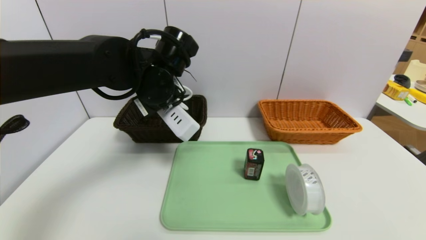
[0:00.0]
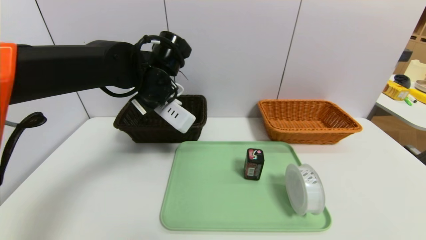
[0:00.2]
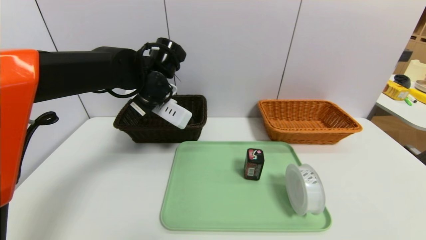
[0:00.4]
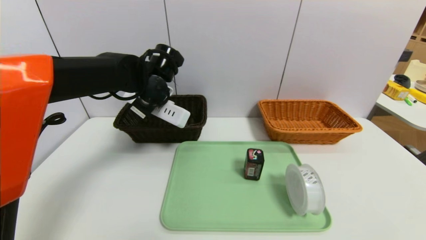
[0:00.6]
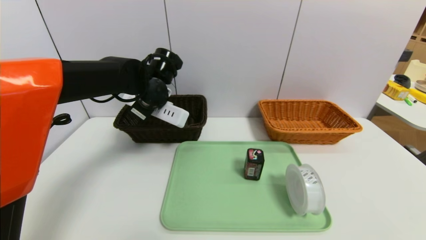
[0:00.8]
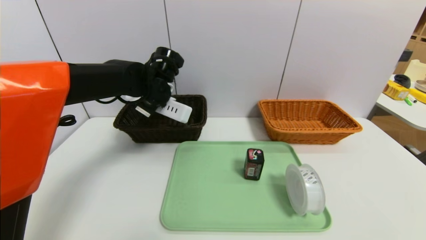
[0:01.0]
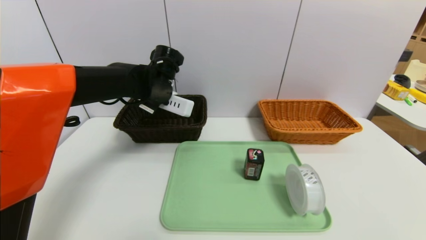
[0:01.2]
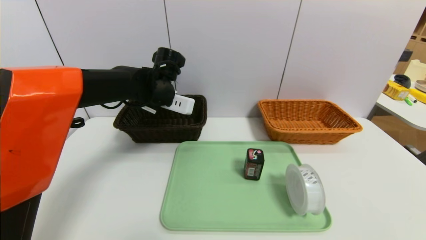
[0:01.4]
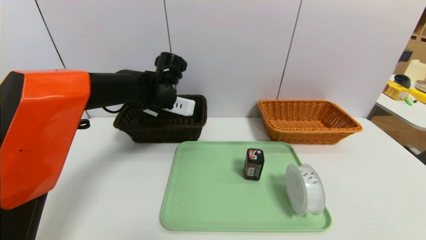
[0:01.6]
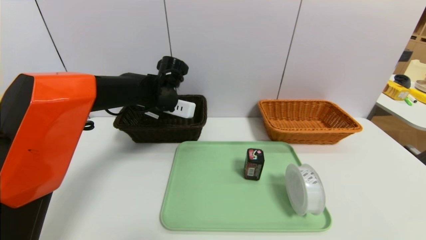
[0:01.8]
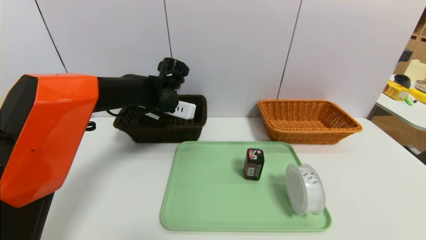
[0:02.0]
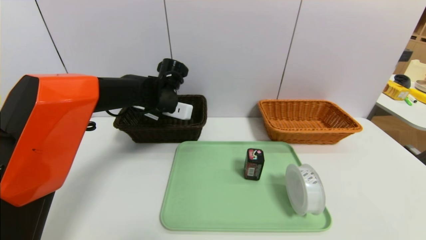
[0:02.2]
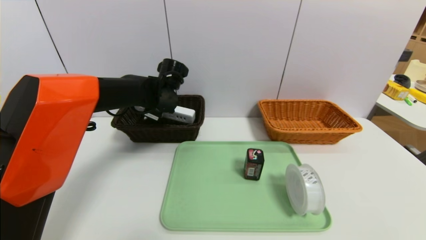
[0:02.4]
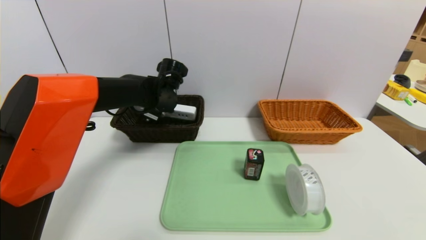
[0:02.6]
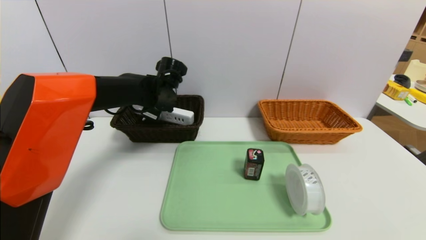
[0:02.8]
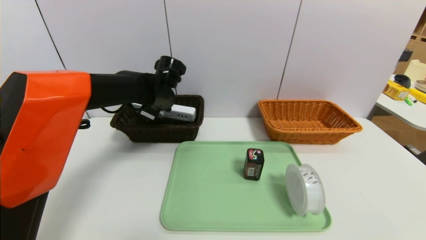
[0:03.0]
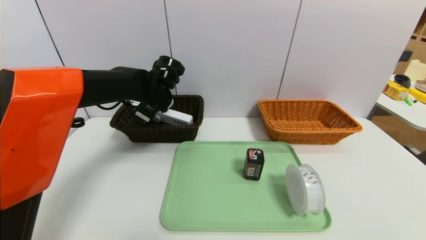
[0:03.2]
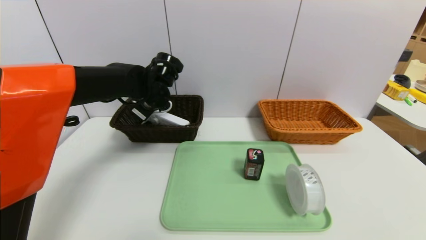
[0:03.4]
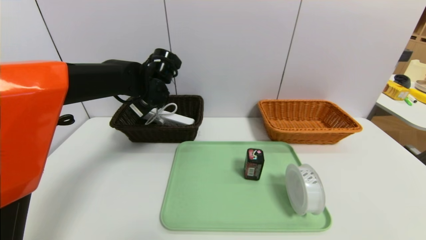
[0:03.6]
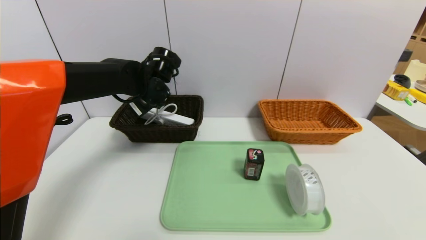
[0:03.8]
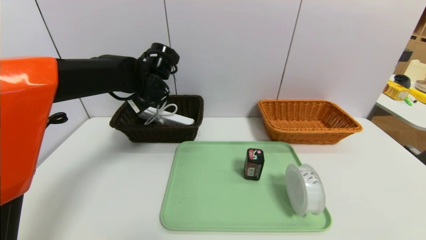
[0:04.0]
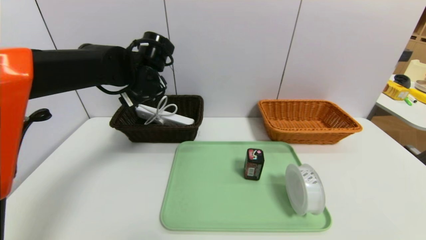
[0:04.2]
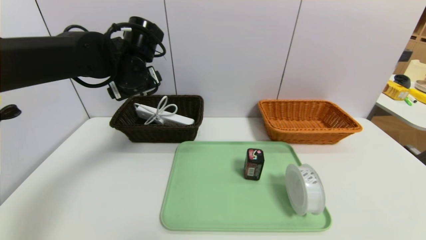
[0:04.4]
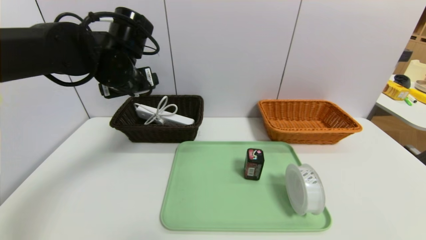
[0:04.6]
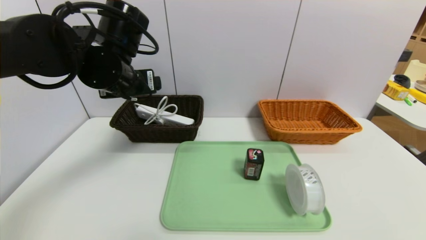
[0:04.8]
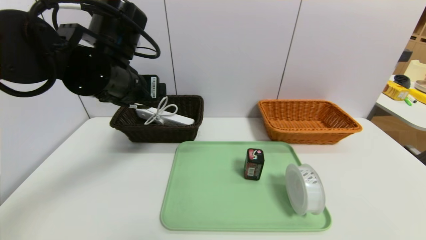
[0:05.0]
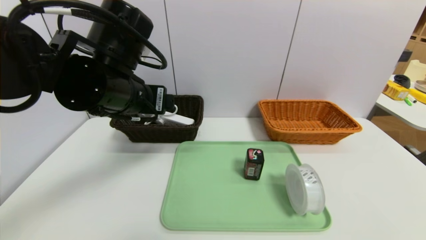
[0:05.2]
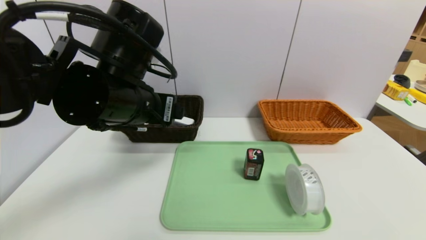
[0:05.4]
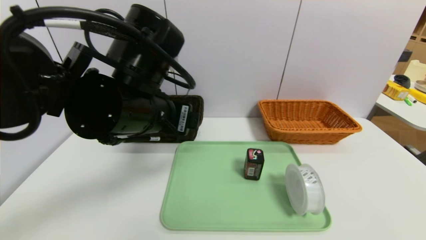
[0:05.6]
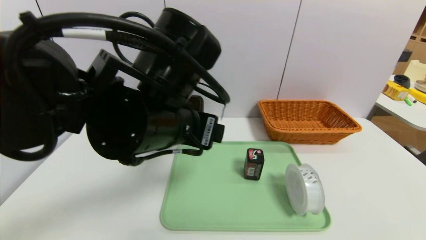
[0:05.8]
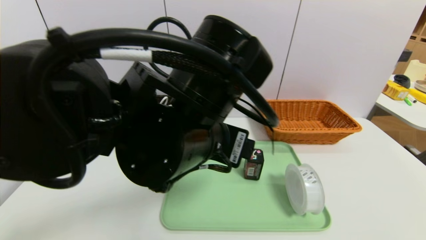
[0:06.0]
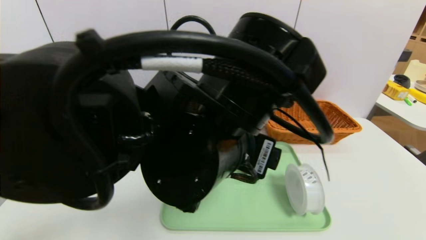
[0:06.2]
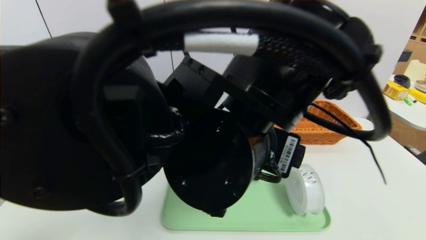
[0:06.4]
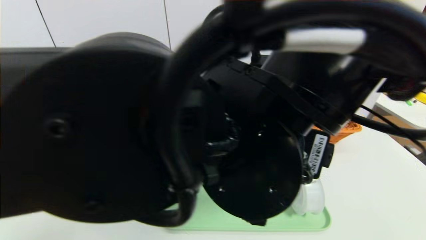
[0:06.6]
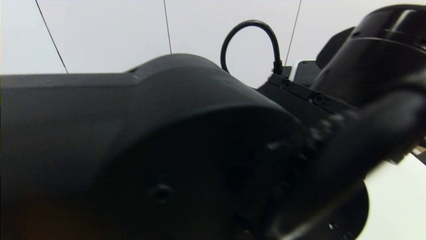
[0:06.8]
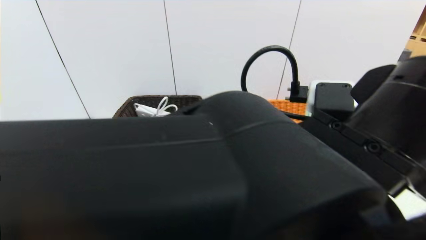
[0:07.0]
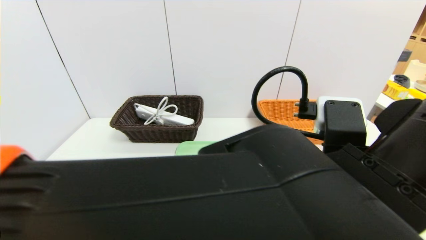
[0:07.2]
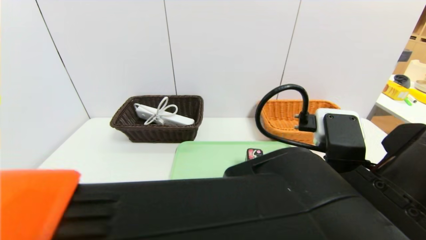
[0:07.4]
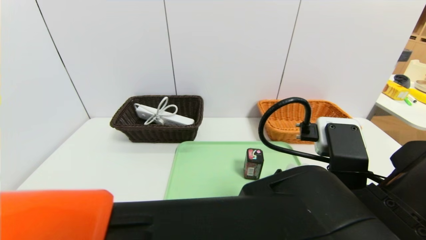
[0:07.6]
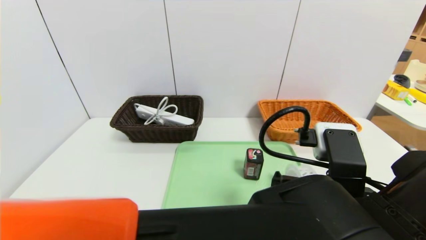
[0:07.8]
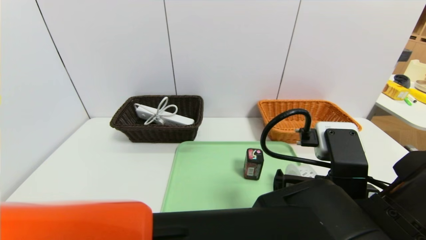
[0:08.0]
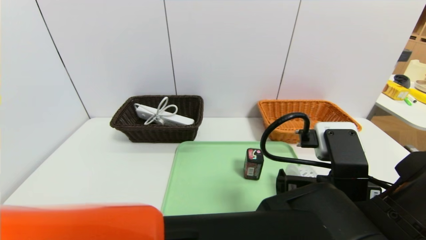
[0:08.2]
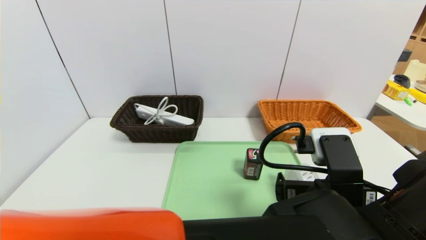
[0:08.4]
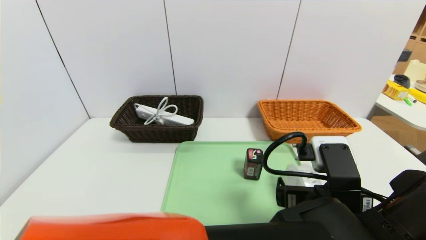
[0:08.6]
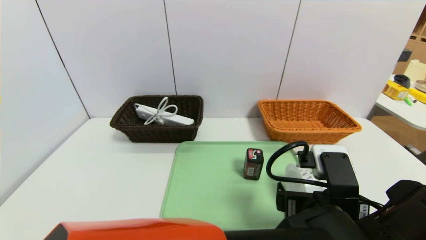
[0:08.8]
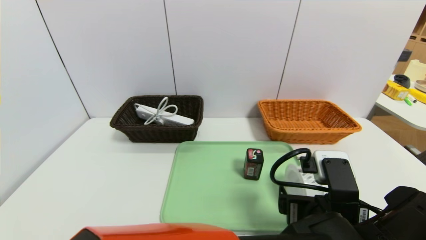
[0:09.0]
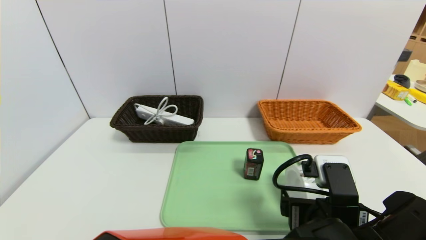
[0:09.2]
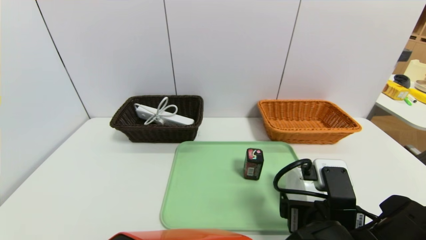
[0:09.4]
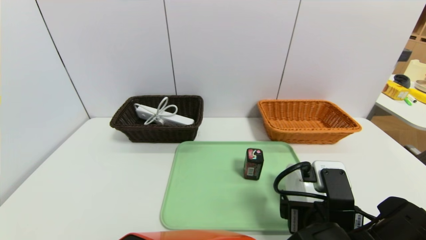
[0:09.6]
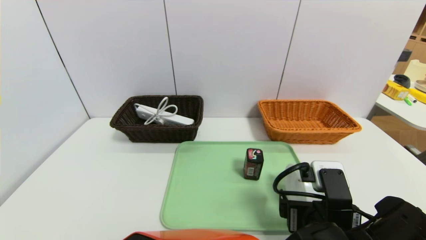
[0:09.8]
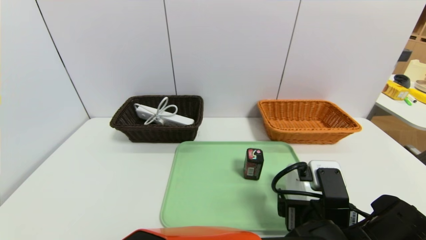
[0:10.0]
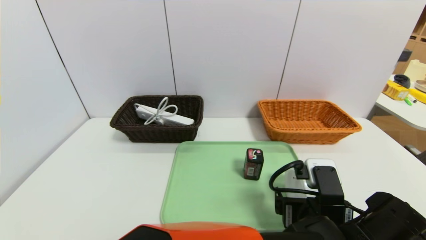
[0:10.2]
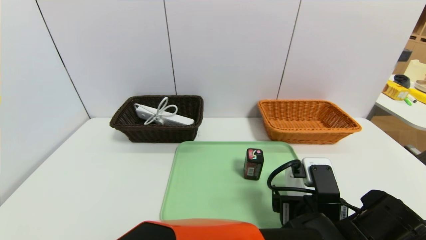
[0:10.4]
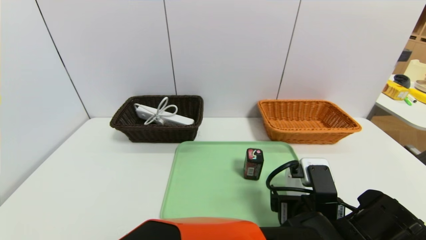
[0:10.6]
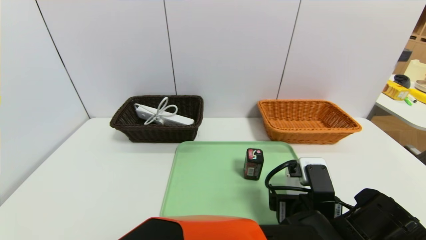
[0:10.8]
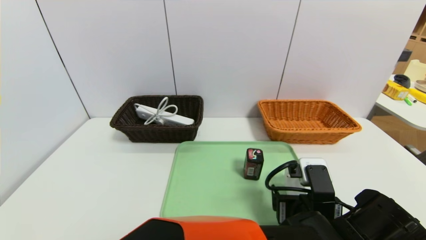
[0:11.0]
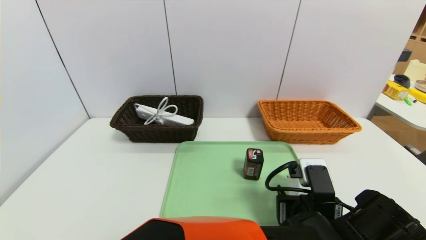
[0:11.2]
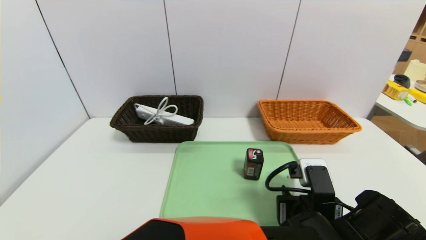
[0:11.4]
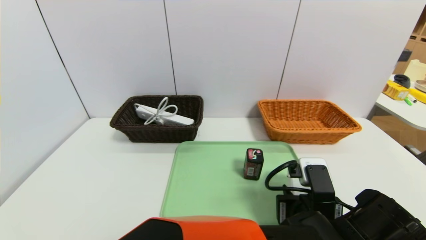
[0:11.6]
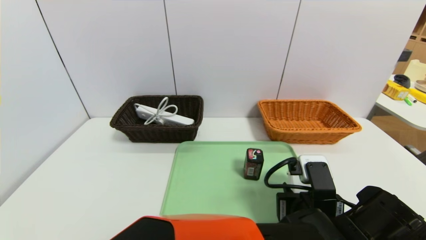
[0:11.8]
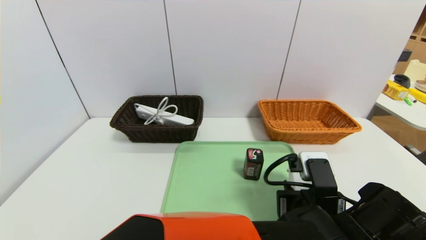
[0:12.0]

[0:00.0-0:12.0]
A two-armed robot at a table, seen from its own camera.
Task of the whole recording: place the food in the right basket with the right gripper, and place the non food items in the left basket with the left gripper.
Step, 0:00.0 to 0:02.8: Grasp the power strip and put it in the left basket.
0:00.0 to 0:01.6: The left gripper goes about 10 cm forward and downward.
0:01.6 to 0:03.0: The left gripper opens its fingers.
0:03.0 to 0:04.4: The left gripper goes roughly 10 cm upward and backward.
0:04.4 to 0:06.0: The left gripper heads backward and to the right, covering roughly 20 cm.
0:06.0 to 0:07.6: The left gripper goes approximately 15 cm to the right and backward.
0:07.6 to 0:09.0: The left gripper shifts approximately 5 cm downward.
0:09.0 to 0:10.4: There are only small adjustments of the grippers.
0:10.4 to 0:12.0: The left gripper closes its fingers.

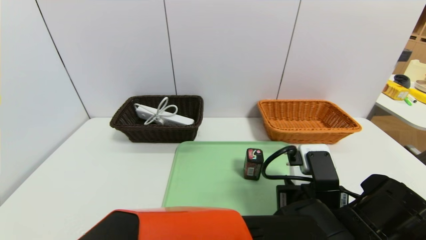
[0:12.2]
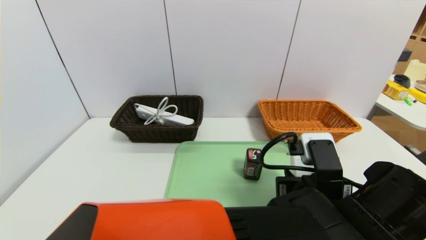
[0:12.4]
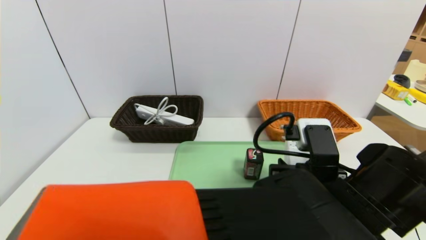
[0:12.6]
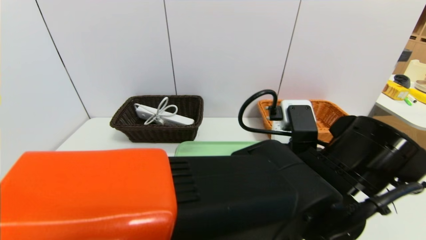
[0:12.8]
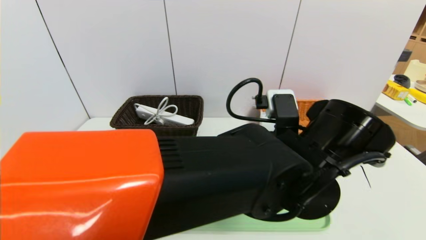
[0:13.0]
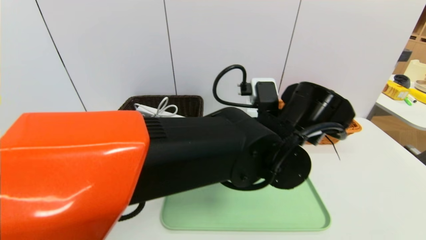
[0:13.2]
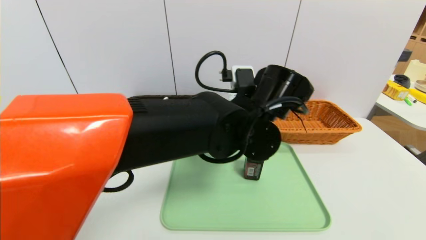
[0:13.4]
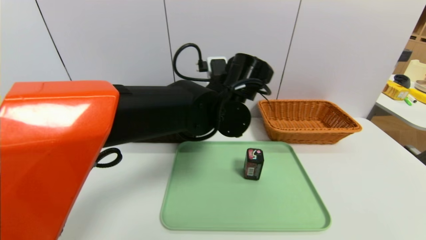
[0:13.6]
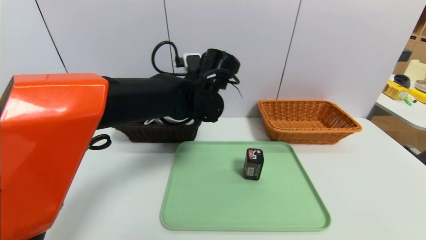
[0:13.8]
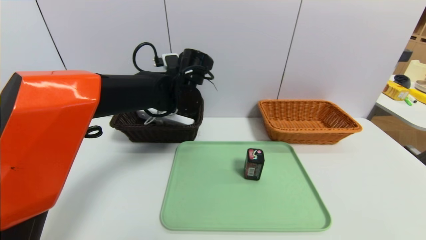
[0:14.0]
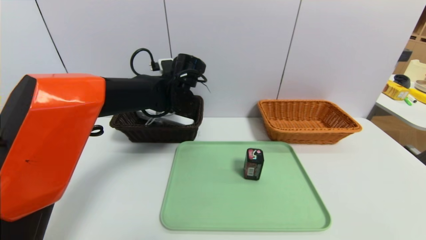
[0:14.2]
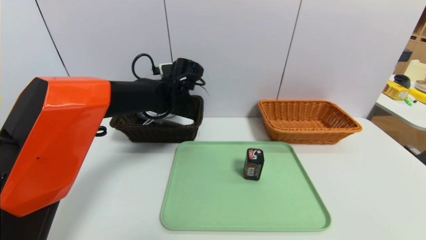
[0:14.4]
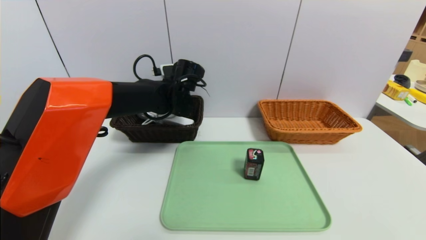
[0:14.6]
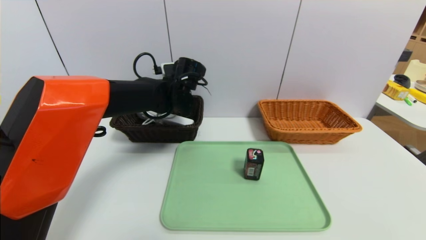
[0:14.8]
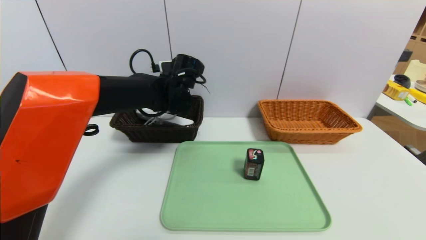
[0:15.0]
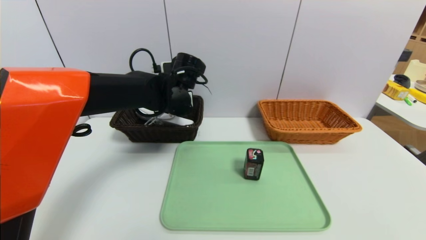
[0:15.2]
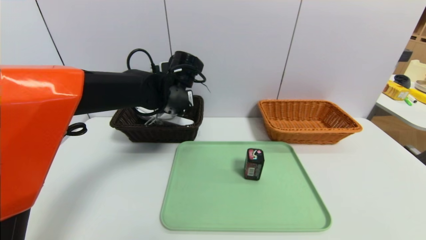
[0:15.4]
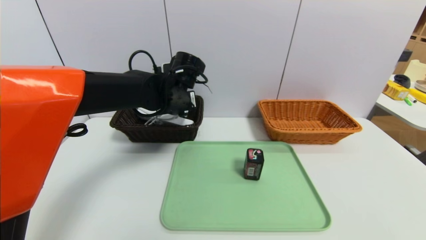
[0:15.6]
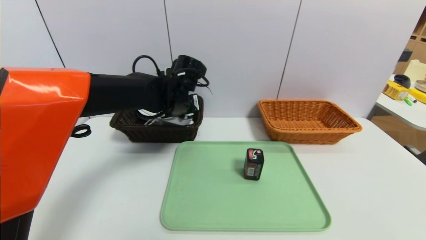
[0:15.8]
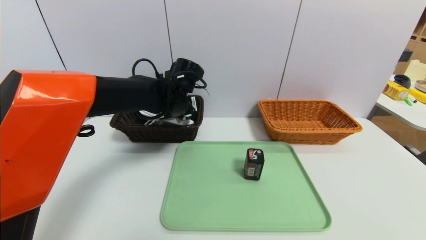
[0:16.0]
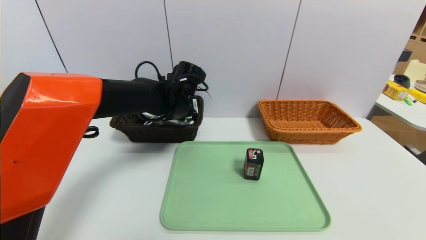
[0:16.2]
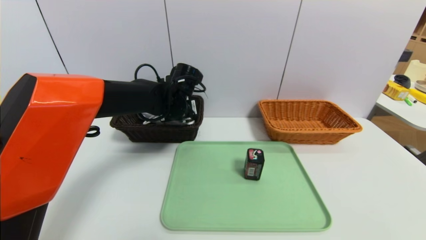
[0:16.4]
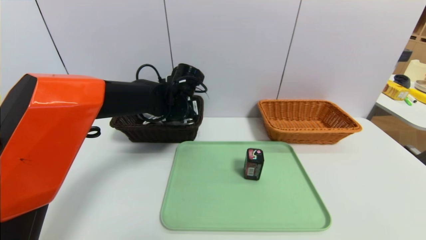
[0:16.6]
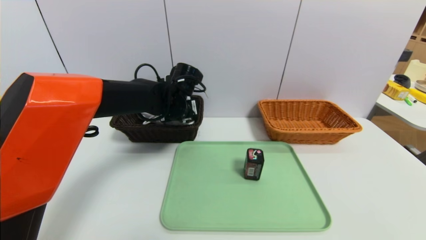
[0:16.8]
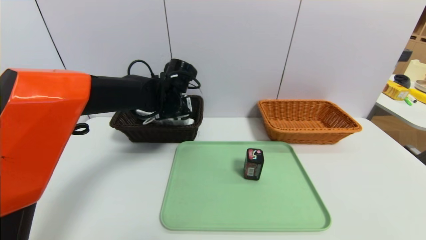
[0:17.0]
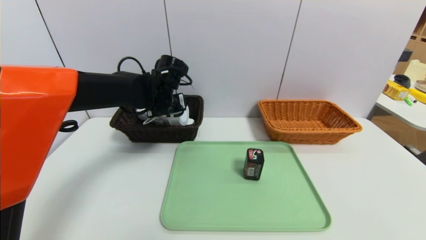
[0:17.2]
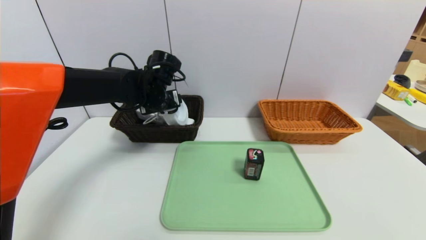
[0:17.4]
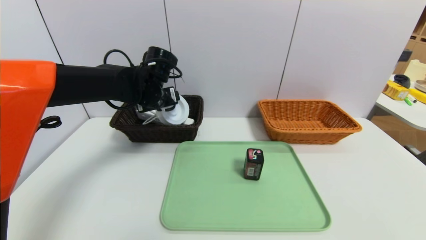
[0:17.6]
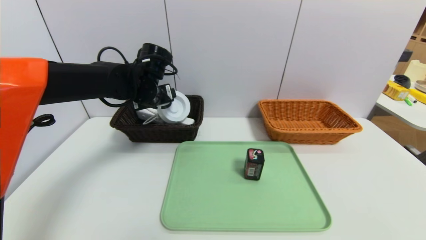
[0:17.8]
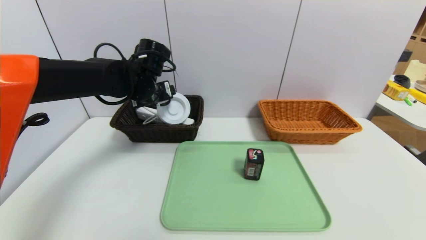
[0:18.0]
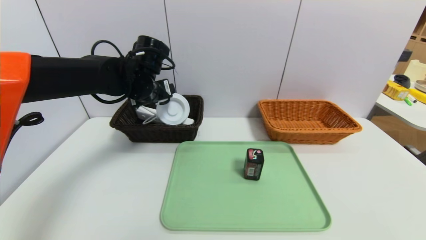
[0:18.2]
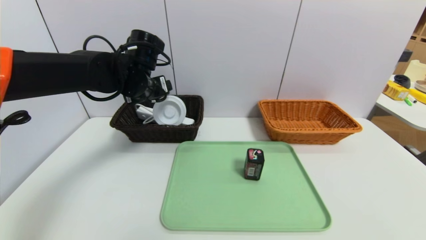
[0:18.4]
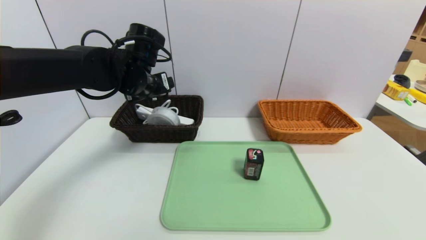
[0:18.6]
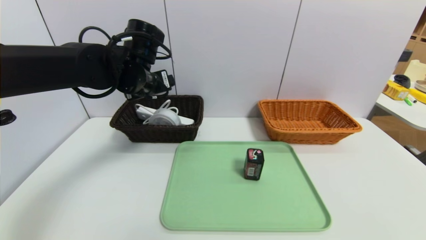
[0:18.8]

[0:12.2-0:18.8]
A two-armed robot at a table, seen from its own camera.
Task of the whole recording: place the food in the right basket with the right gripper, and place the non food items in the left basket with the left gripper.
Step, 0:12.2 to 0:15.4: Grasp the tape and put it in the left basket.
0:12.2 to 0:13.8: The left gripper travels forward, to the left and upward by about 30 cm.
0:13.8 to 0:15.4: The left gripper goes some 5 cm to the left.
0:15.4 to 0:17.2: The left gripper opens.
0:17.2 to 0:18.8: The left gripper goes approximately 5 cm upward.
